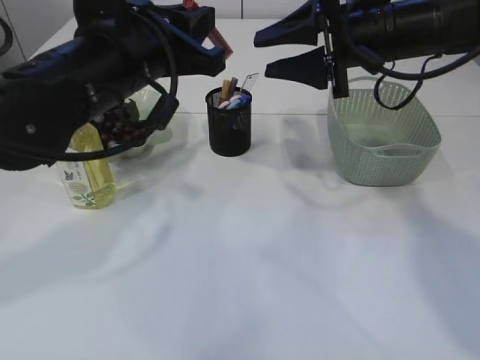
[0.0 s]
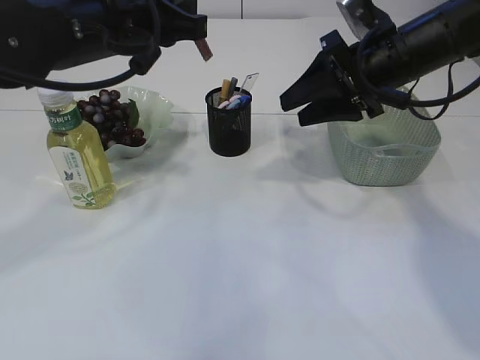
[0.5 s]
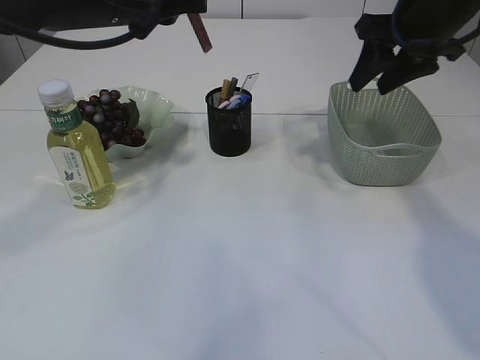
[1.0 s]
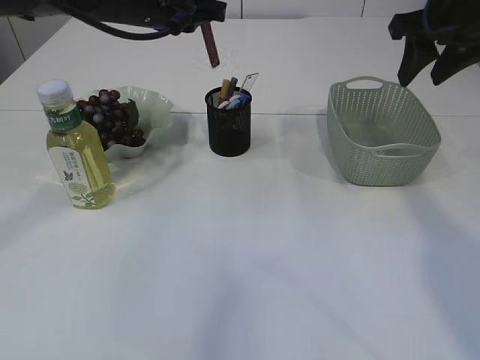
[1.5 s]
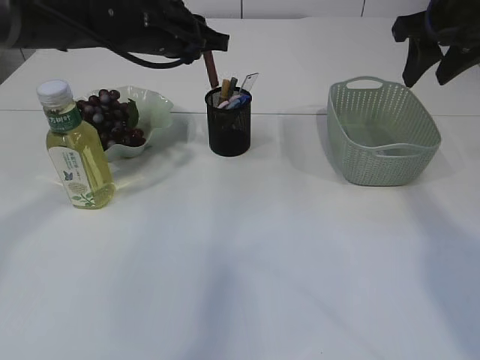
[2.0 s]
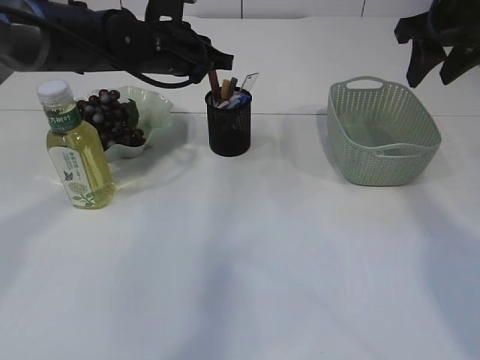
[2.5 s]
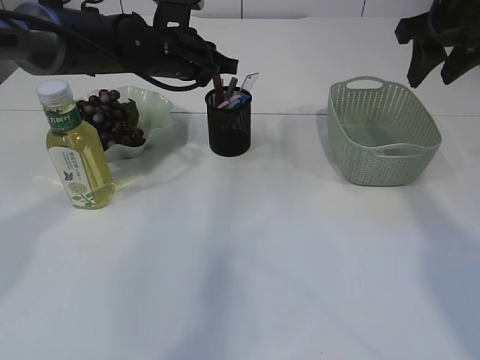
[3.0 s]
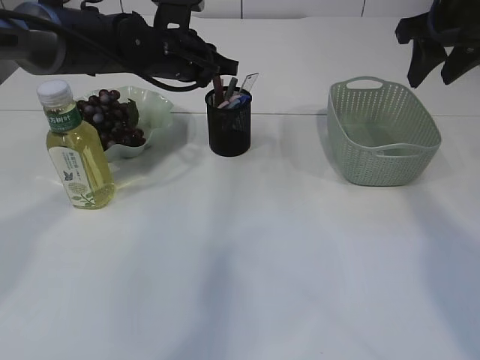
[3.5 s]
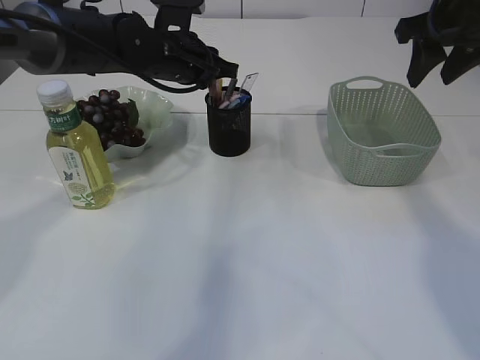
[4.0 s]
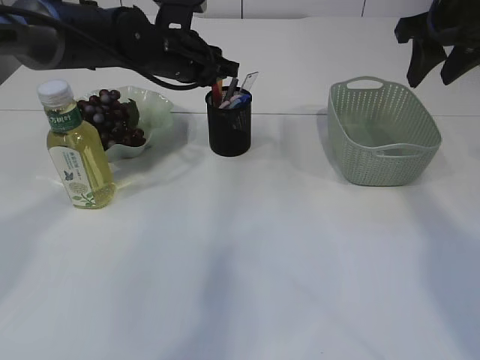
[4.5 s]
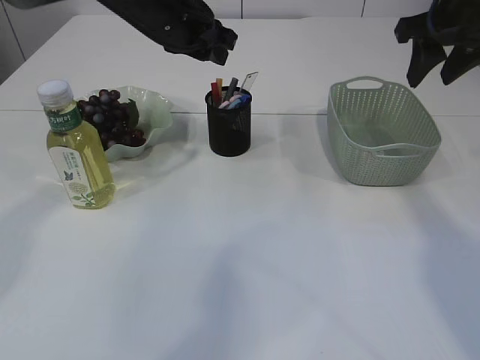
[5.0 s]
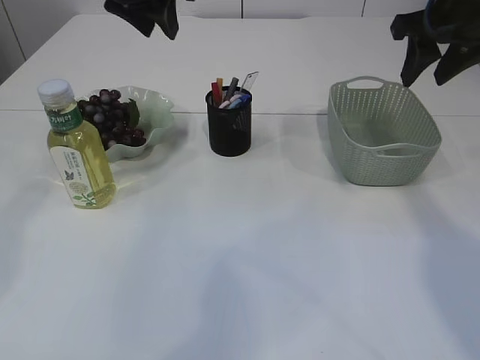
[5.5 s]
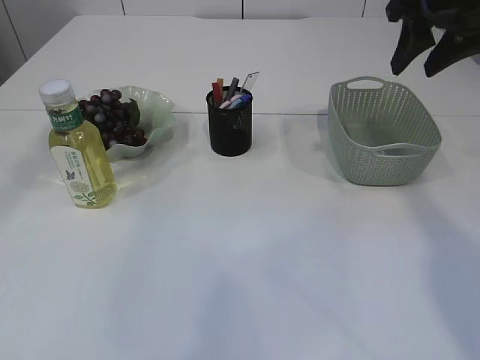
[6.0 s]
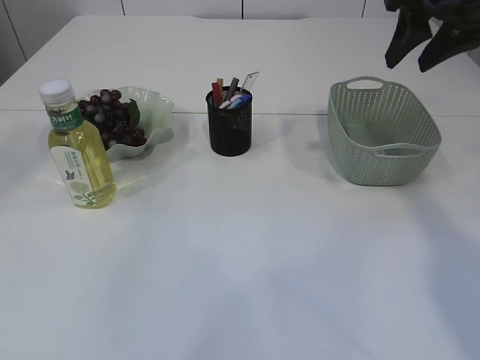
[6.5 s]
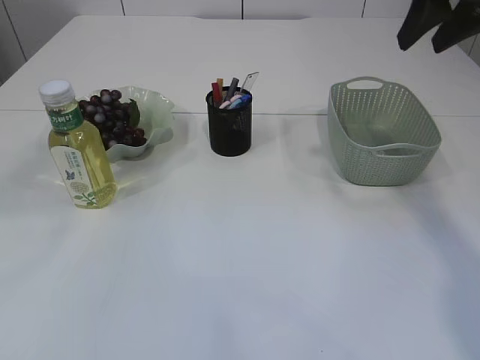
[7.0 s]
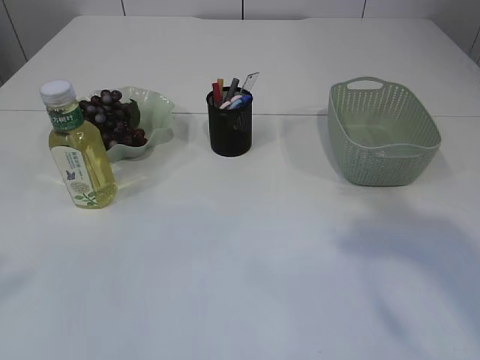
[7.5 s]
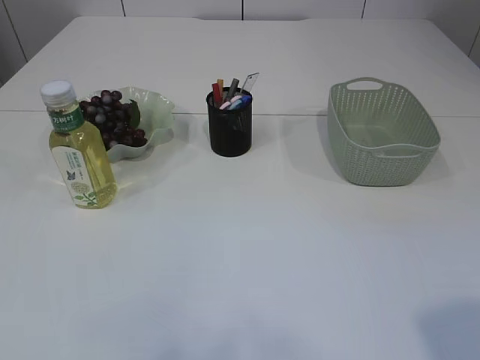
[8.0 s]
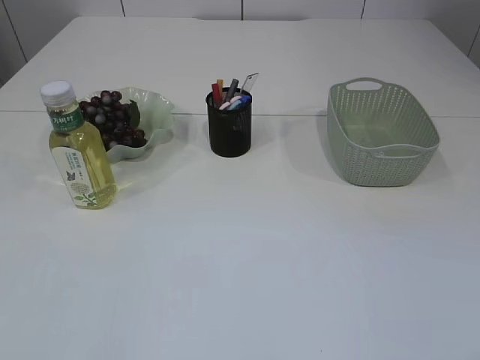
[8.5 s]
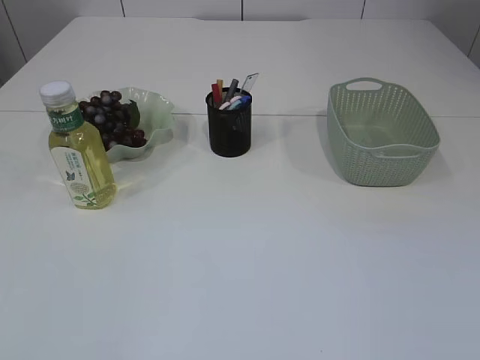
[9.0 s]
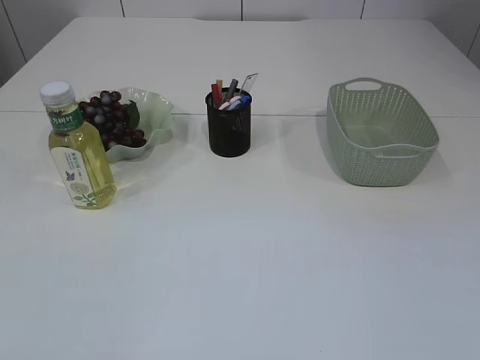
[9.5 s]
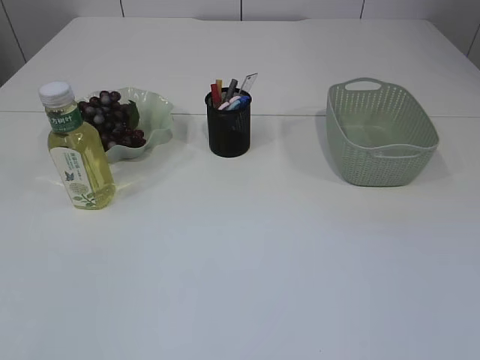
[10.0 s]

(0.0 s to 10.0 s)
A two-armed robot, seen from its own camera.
Step, 0.0 s - 5.0 s: place the red glue into the pen holder.
0.0 s - 2.0 s: The left gripper goes approximately 15 cm forward, while the right gripper travels to the right by some 10 cm.
2.0 s - 4.0 s: The left gripper moves roughly 5 cm.
4.0 s - 6.0 s: The left gripper moves upward, roughly 20 cm, and opens.
6.0 s - 8.0 s: The left gripper heads backward and to the left, covering about 40 cm, while the right gripper is displaced backward by approximately 35 cm.
8.0 s - 10.0 s: The right gripper goes roughly 10 cm downward and backward; the left gripper heads downward, covering some 10 cm.

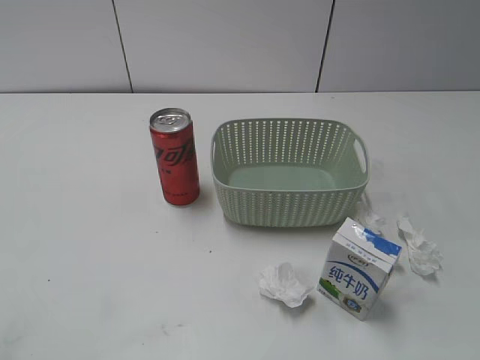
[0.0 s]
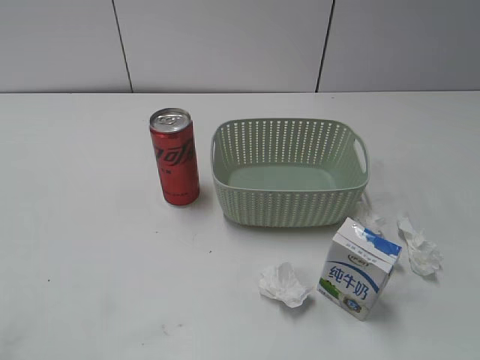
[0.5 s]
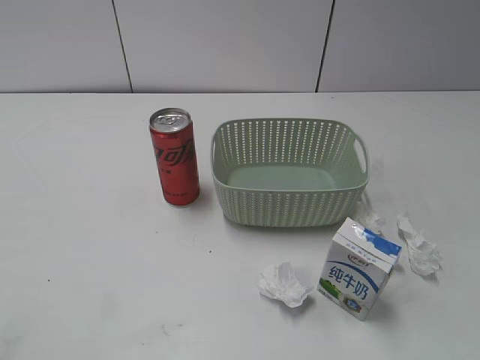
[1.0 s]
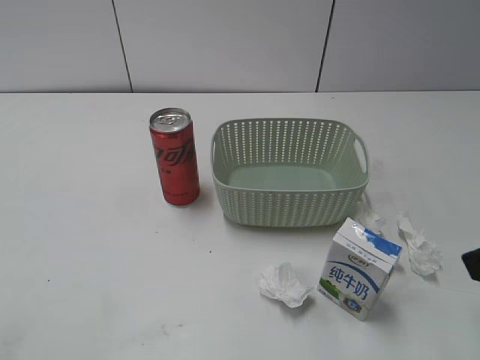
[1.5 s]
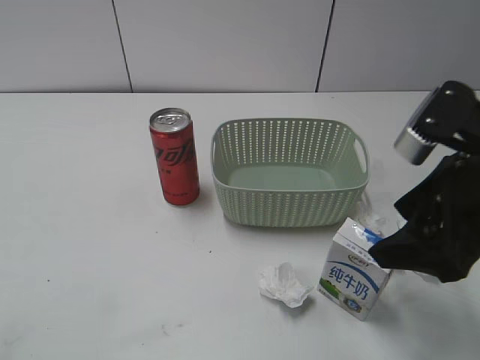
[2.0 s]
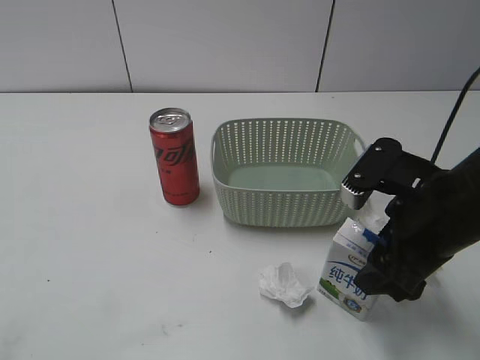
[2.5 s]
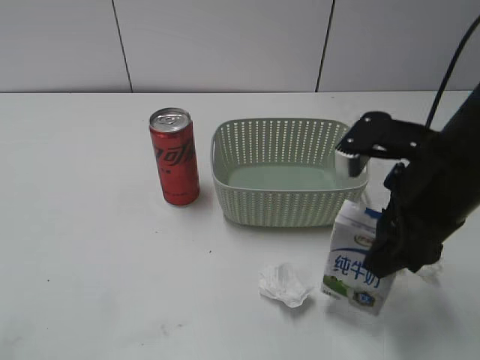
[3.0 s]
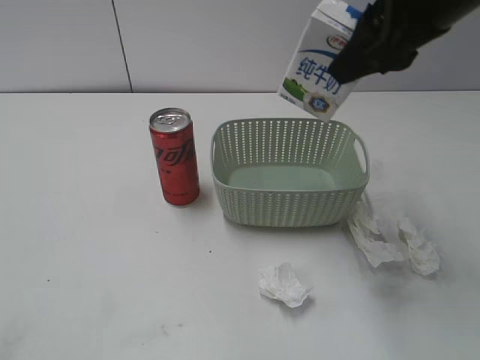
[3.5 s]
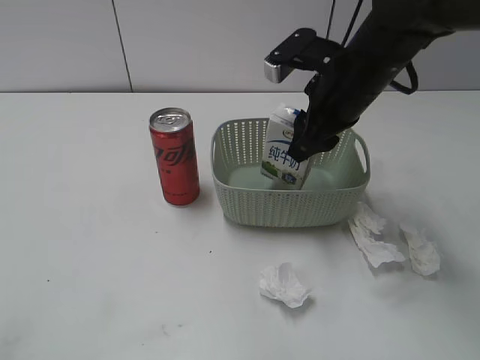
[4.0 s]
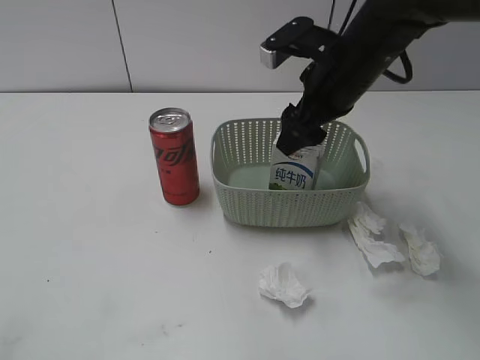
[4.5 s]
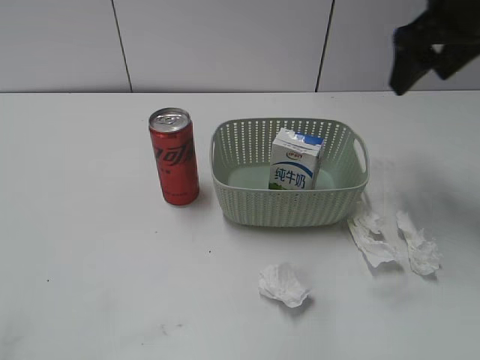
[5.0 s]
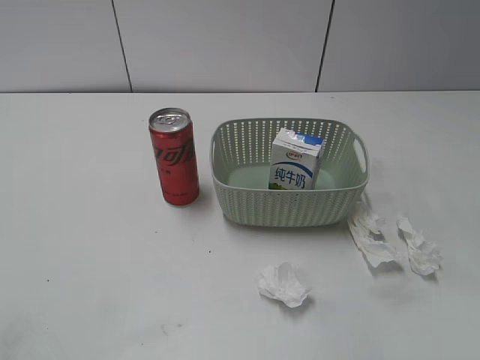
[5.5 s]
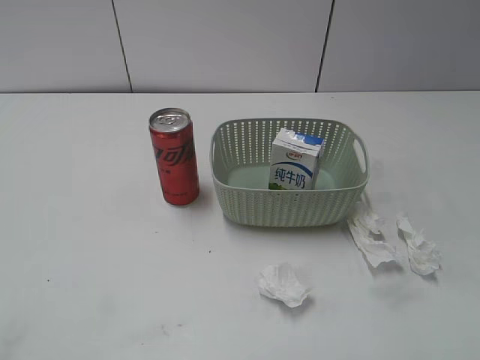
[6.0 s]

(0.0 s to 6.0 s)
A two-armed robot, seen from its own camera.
Step, 1.5 s - 2.5 s: Grasp the milk with right gripper.
Step, 3.0 s - 4.5 s: Place the milk in the basket with right gripper.
2.0 s - 4.0 s: The right gripper goes up and down, roughly 15 cm each way, reversing 2 times, and closes.
4.0 s - 6.0 s: The right gripper travels backward and to the right by some 30 cm, and opens up.

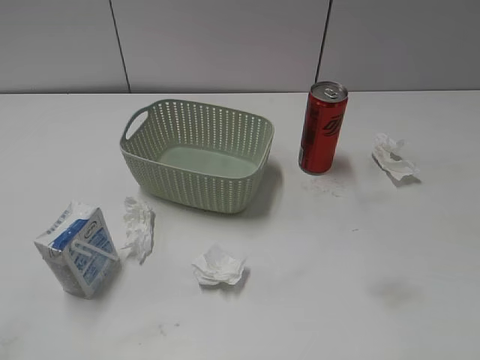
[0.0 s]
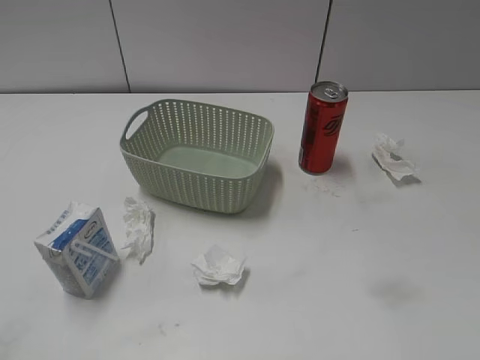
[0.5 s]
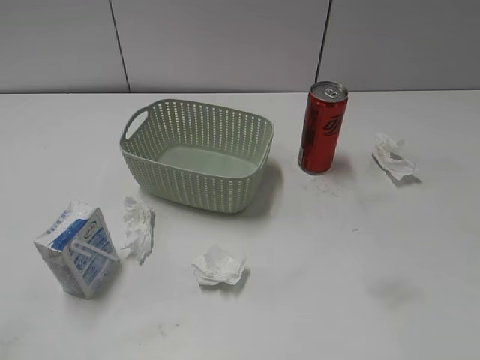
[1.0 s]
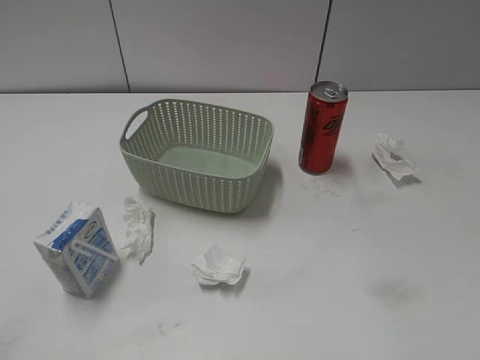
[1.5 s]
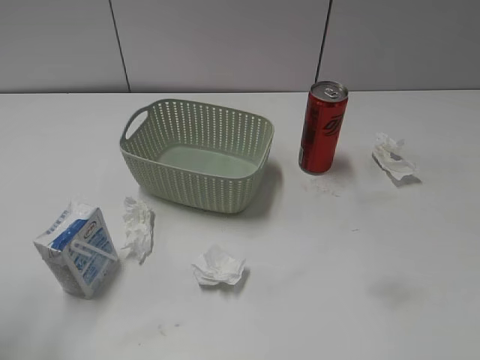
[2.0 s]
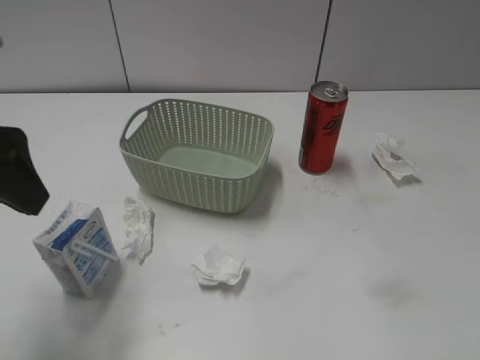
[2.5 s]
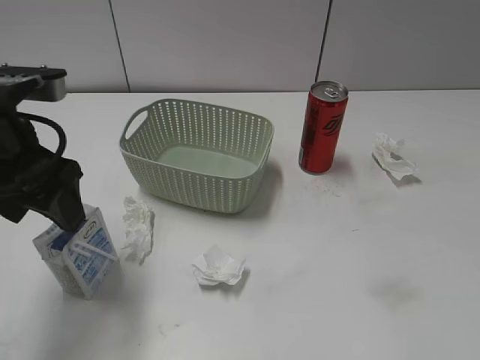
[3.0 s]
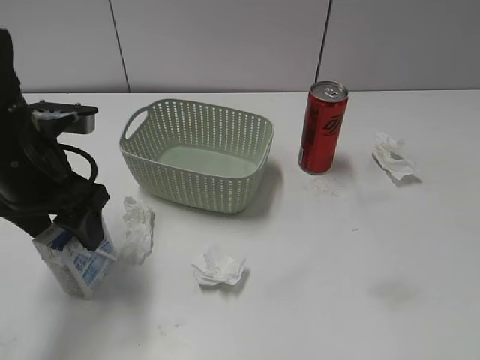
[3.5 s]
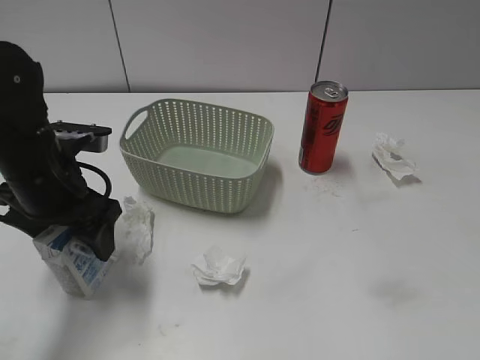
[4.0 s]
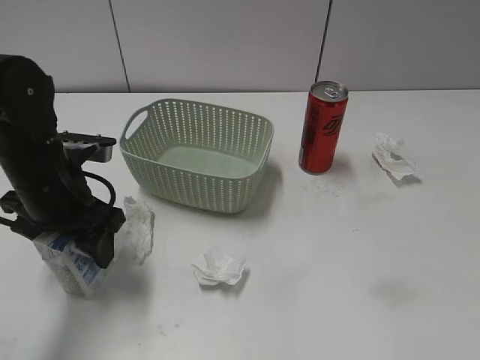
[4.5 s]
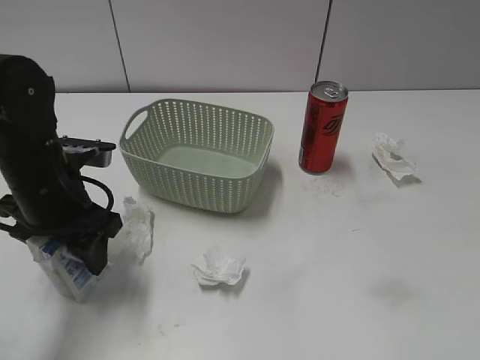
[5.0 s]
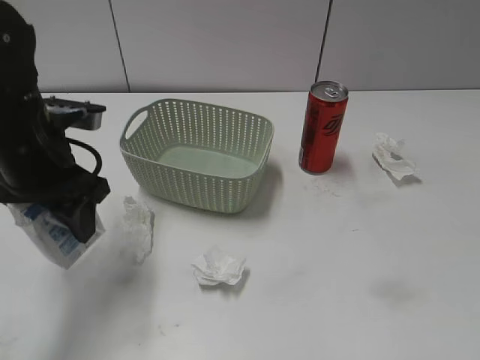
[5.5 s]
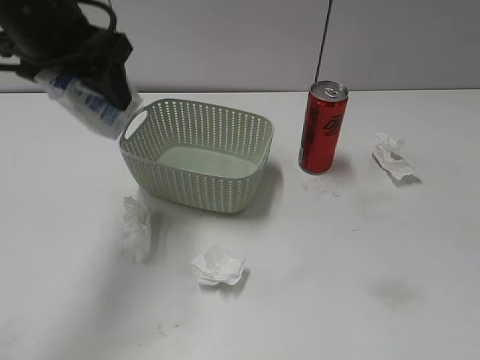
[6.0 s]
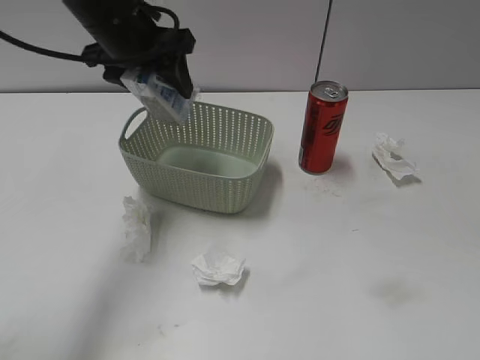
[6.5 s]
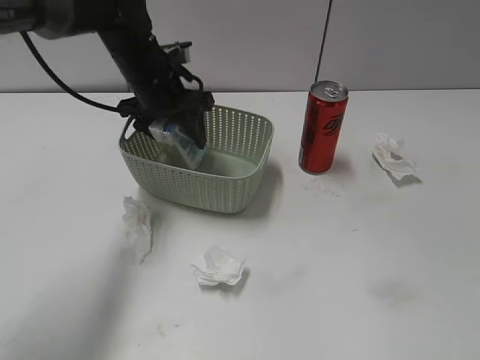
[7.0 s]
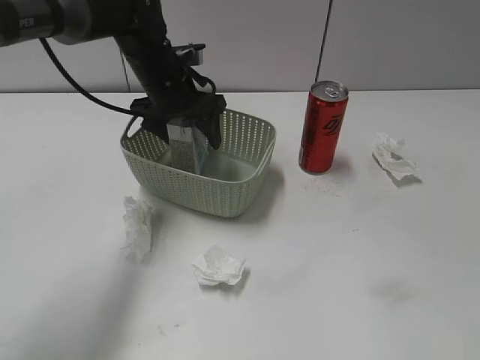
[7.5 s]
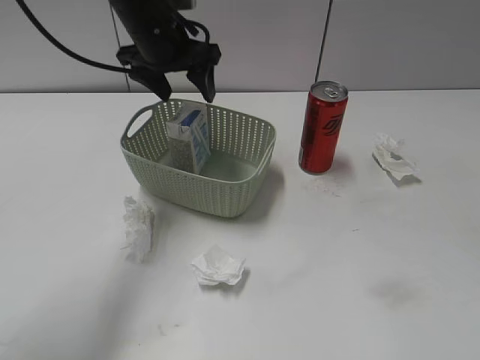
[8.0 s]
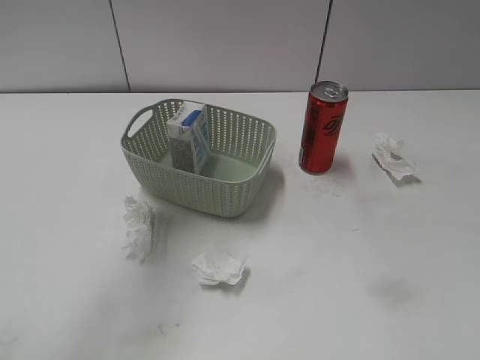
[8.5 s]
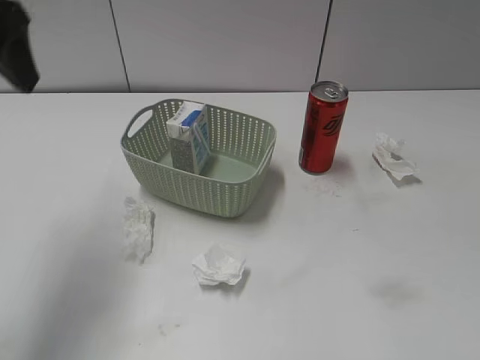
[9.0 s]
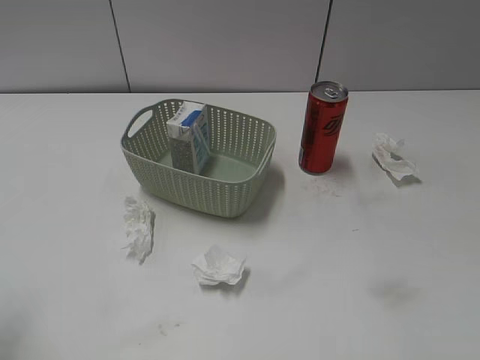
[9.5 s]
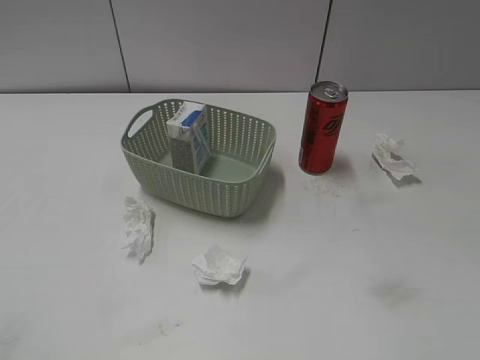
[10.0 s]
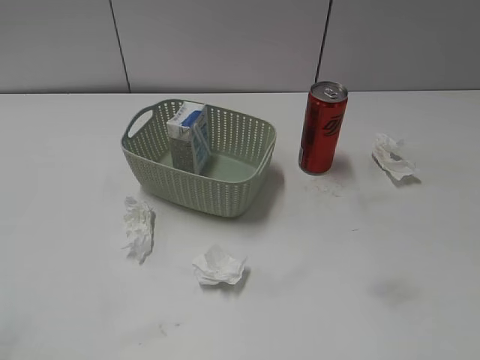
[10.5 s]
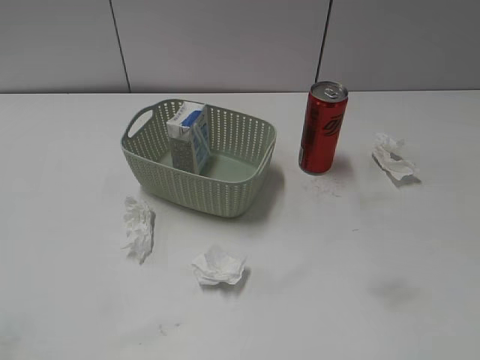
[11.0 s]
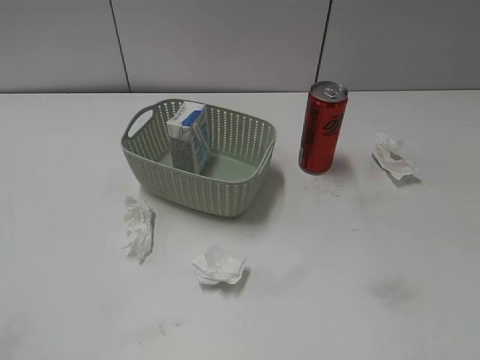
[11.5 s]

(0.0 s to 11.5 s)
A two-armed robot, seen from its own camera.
Step, 2.5 s - 4.5 s: Grasp the milk with left gripper.
Step, 5.0 s - 8.0 s: Place the milk in the basket with left gripper.
2.0 s - 4.0 s: The left gripper moves downward and forward, some 20 cm.
4.0 s - 6.0 s: The left gripper travels upward and forward by about 15 cm, and closes up.
6.0 s - 7.5 s: The left gripper goes some 15 cm downward, forward and to the right, and opens up.
7.5 s - 9.5 s: The left gripper moves backward and to the left, about 40 cm, and closes.
